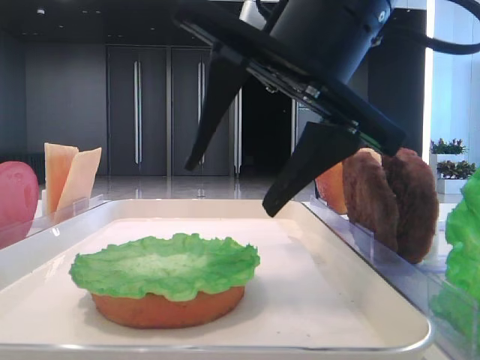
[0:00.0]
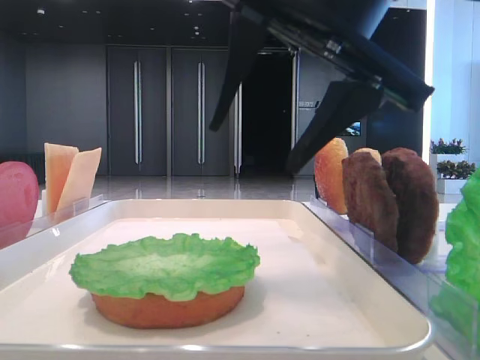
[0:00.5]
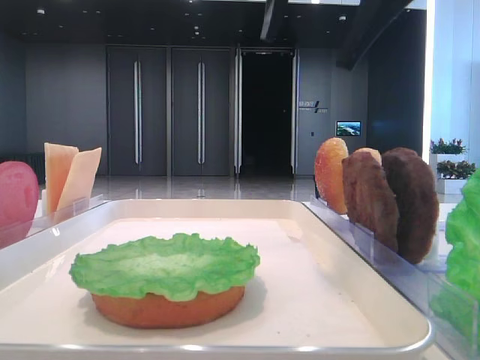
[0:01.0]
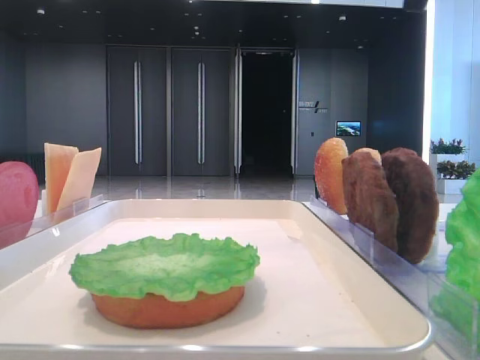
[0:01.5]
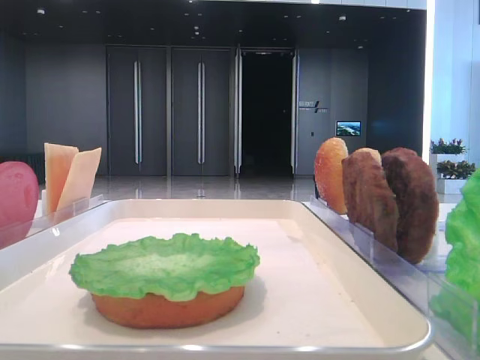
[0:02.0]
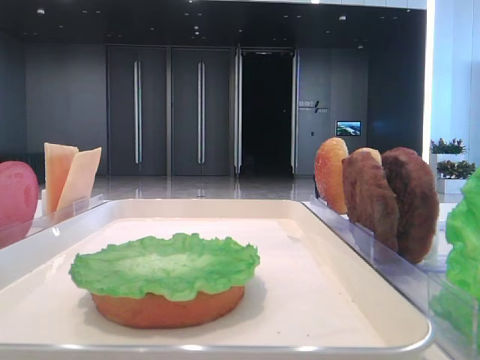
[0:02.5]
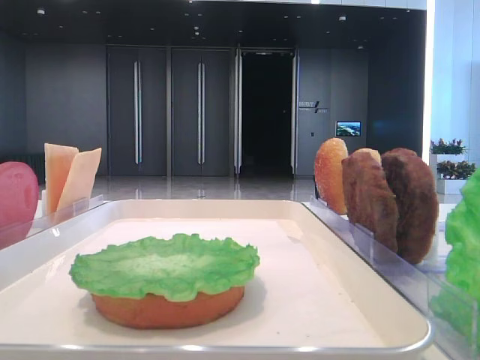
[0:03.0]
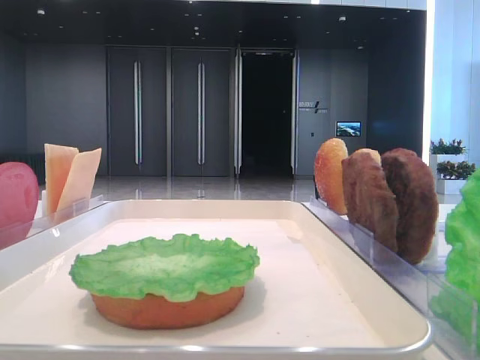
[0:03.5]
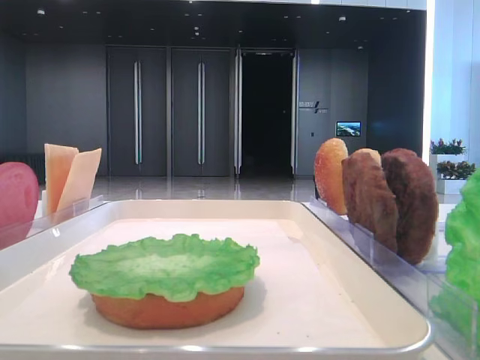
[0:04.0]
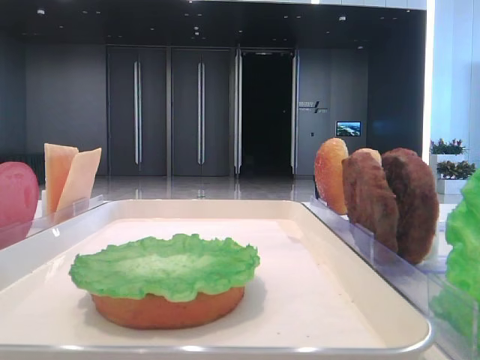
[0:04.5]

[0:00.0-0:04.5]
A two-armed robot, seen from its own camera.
0:00.0 to 0:02.0: The right gripper is displaced to the right and upward by about 25 cm.

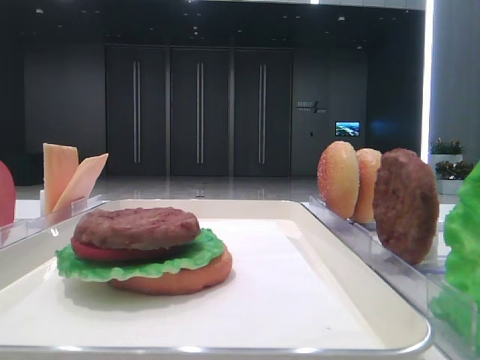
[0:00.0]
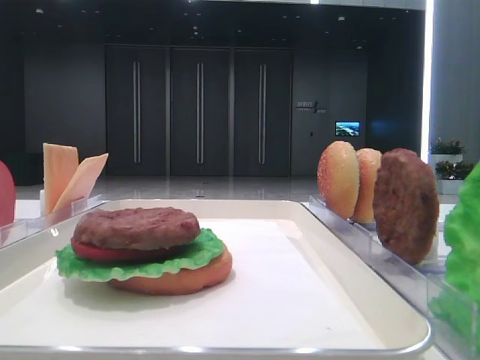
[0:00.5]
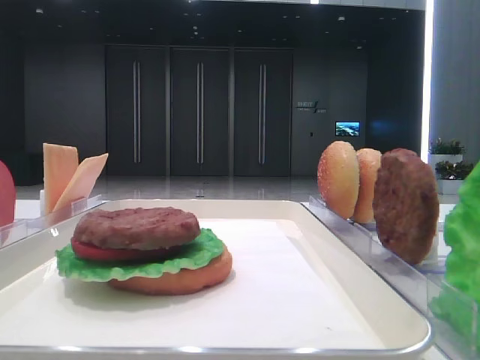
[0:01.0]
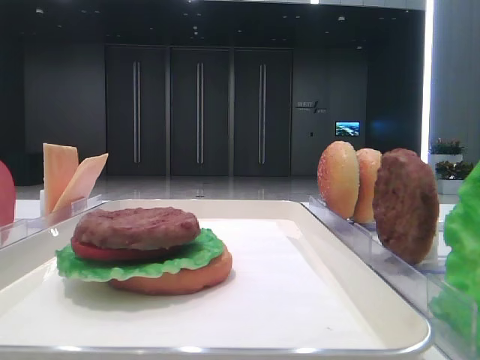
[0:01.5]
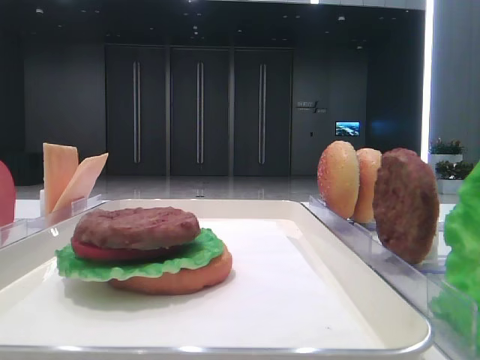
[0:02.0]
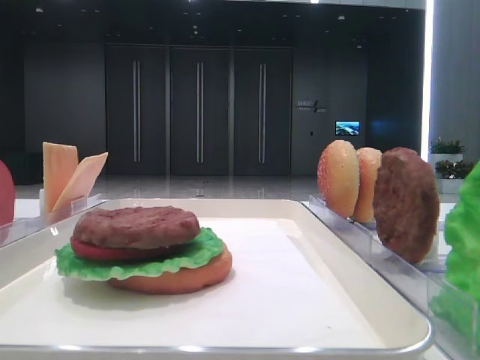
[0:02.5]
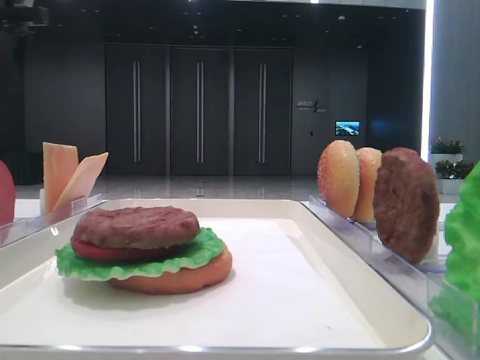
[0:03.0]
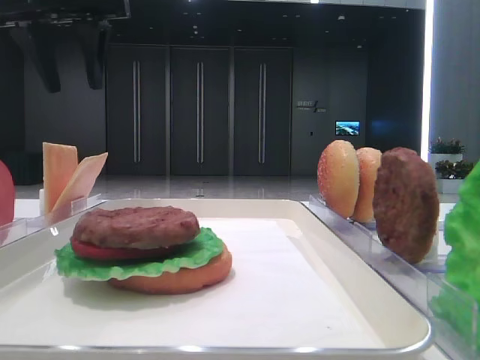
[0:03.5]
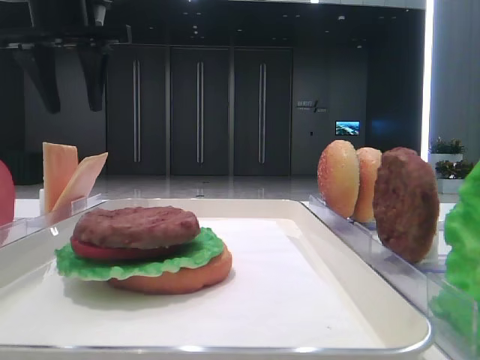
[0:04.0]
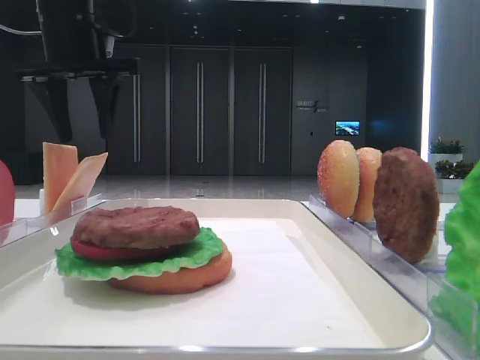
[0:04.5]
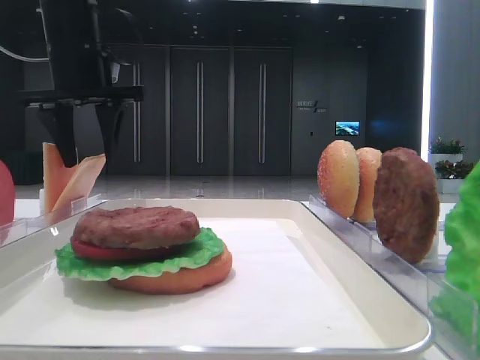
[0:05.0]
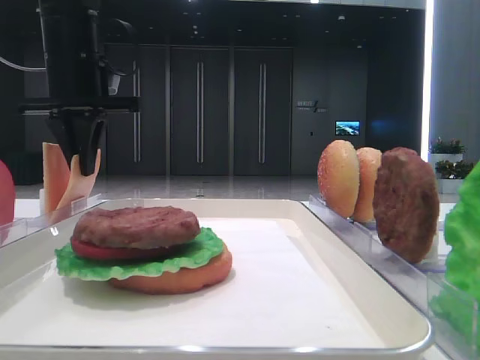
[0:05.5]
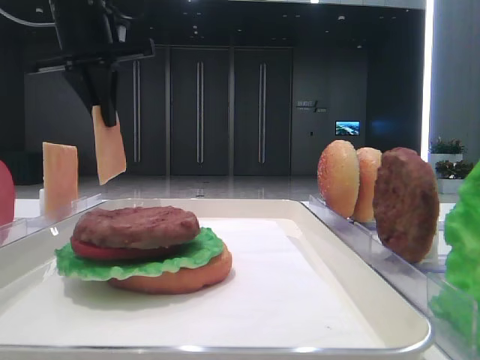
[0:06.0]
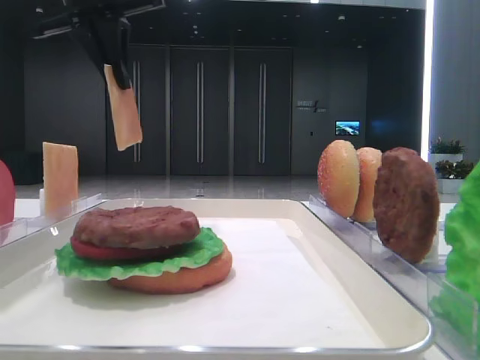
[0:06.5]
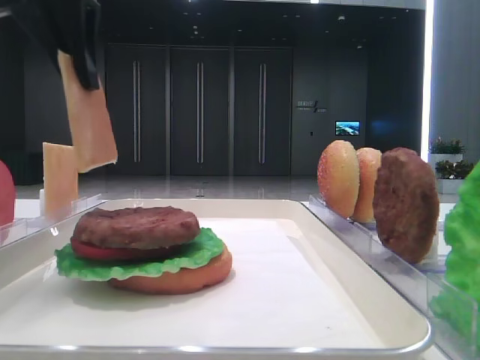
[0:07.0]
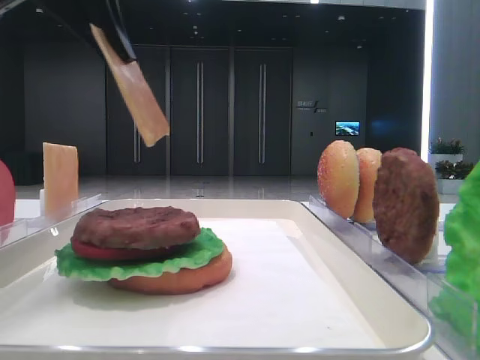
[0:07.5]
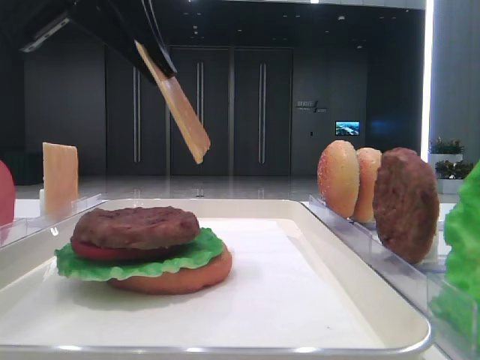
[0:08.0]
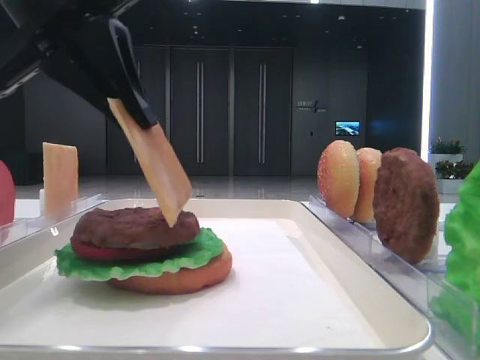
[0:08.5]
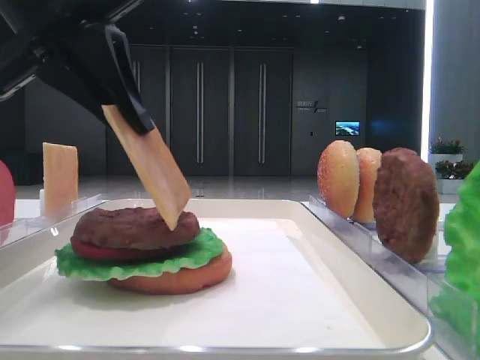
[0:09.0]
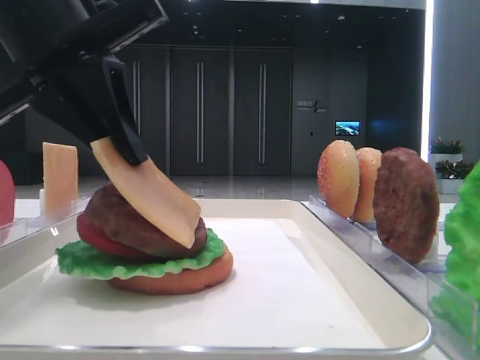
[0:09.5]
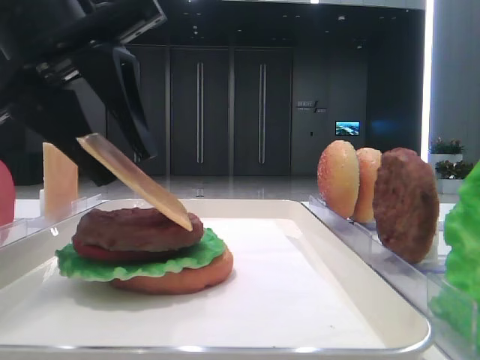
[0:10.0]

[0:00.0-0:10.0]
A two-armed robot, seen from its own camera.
Step, 0:00.0 to 0:05.5: Pick up the cheese slice with the left hand.
0:02.0 to 0:04.0: The left gripper travels forward by approximately 30 cm.
0:04.0 to 0:06.0: The left gripper closes.
0:06.0 to 0:08.0: The left gripper travels backward by some 15 cm.
0:08.0 to 0:10.0: The left gripper heads downward, covering approximately 5 cm, and opens up.

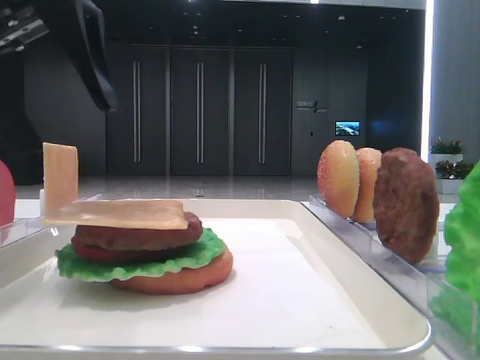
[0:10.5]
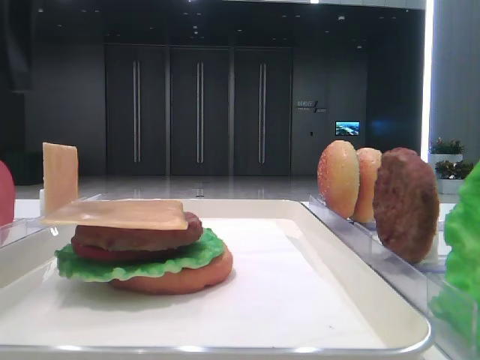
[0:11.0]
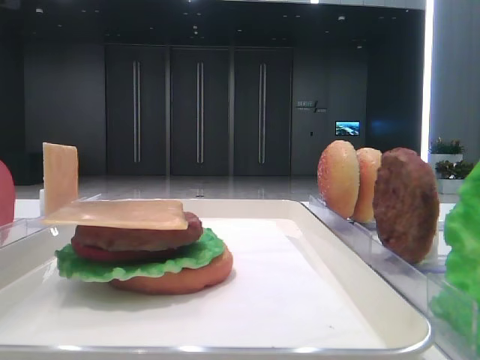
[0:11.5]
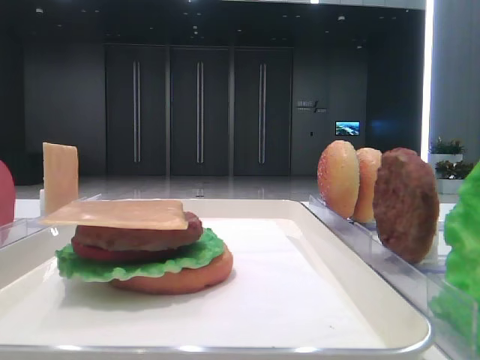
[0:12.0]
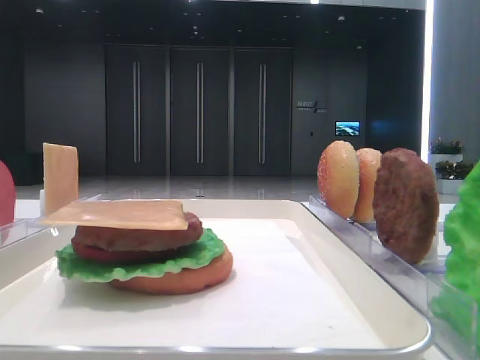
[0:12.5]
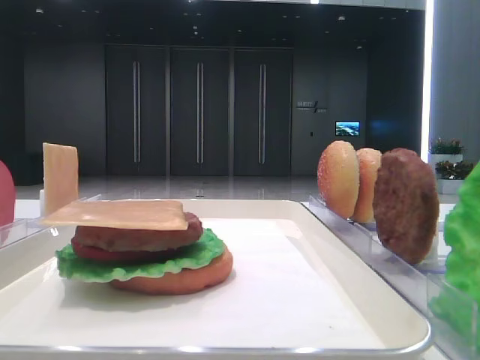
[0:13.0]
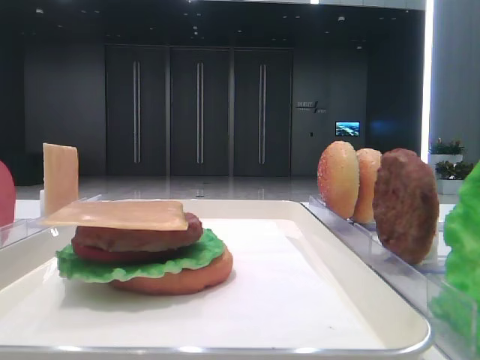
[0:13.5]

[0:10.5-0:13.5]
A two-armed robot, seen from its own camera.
0:10.5 to 0:12.0: The left gripper shifts about 15 cm to the left and upward.

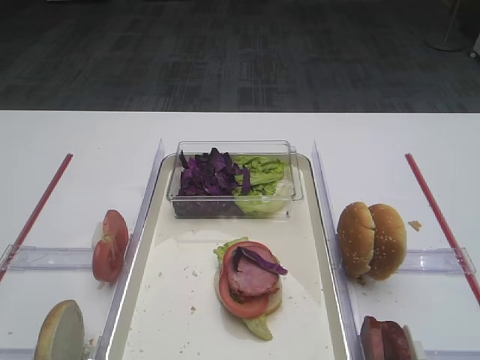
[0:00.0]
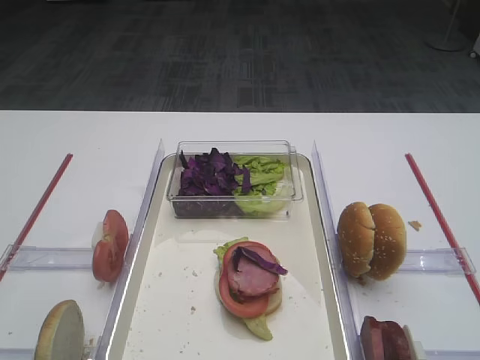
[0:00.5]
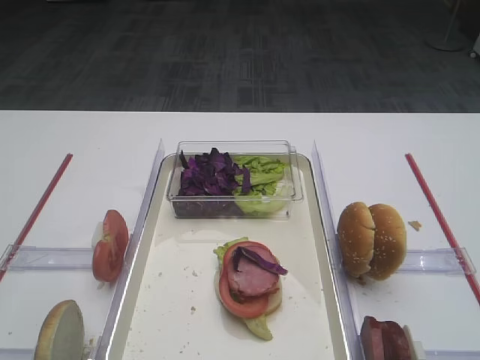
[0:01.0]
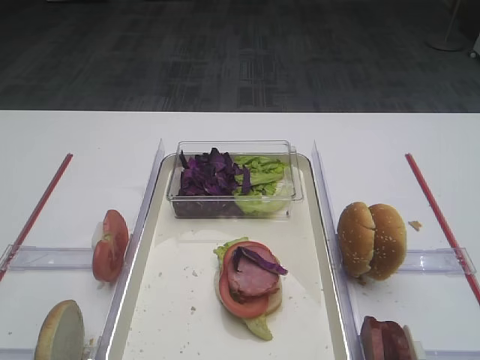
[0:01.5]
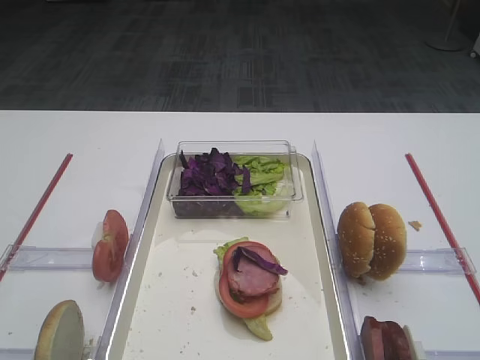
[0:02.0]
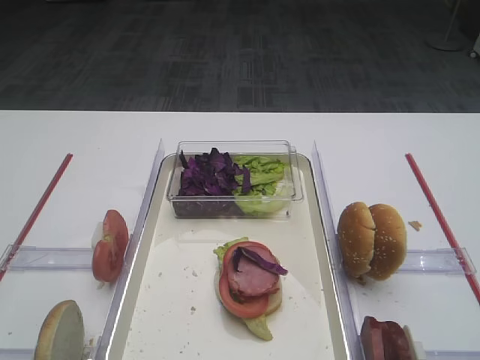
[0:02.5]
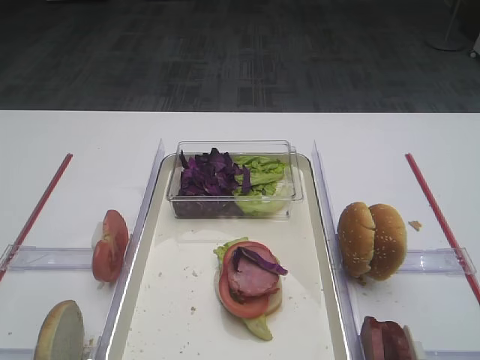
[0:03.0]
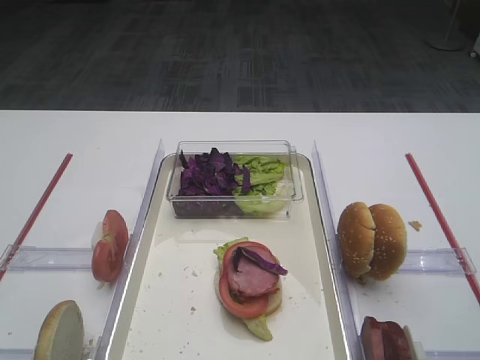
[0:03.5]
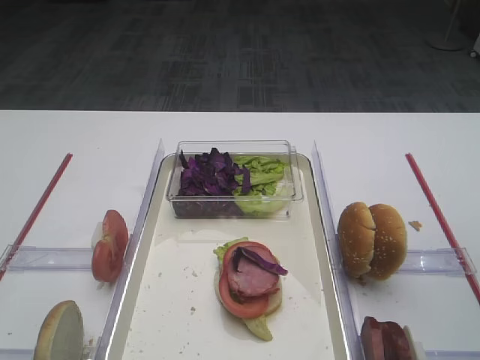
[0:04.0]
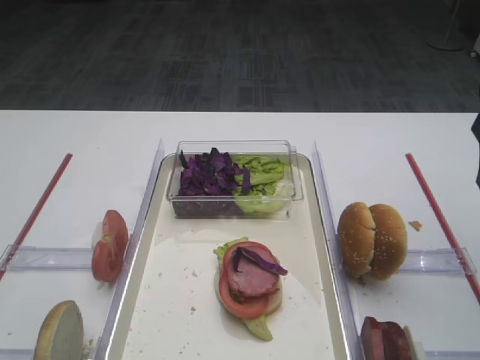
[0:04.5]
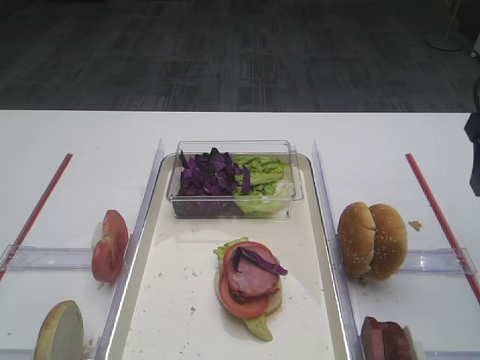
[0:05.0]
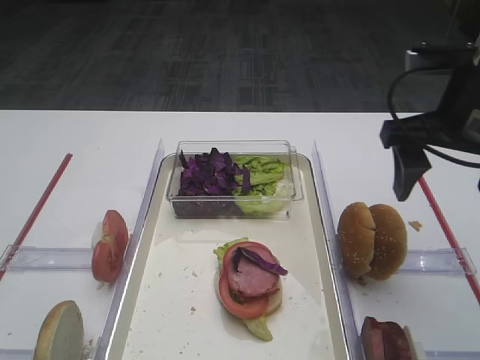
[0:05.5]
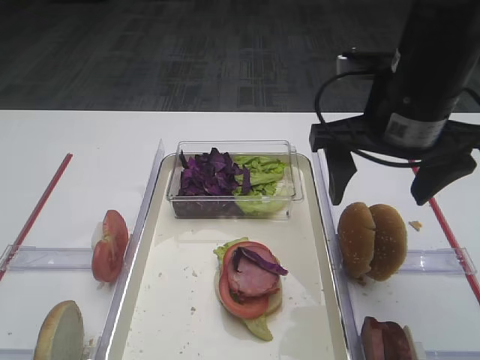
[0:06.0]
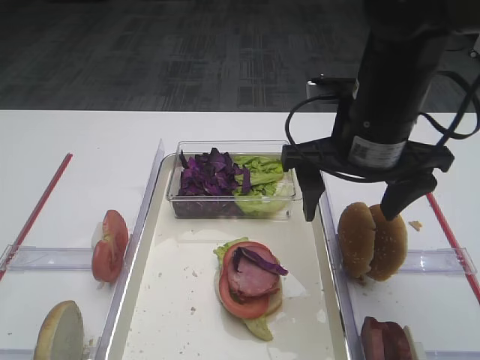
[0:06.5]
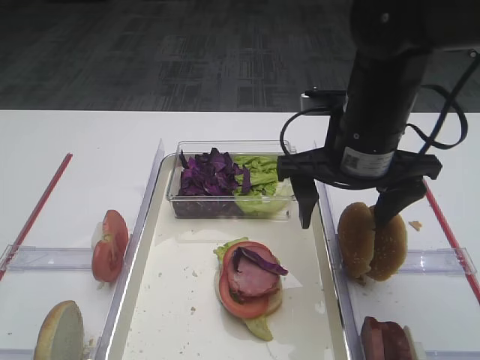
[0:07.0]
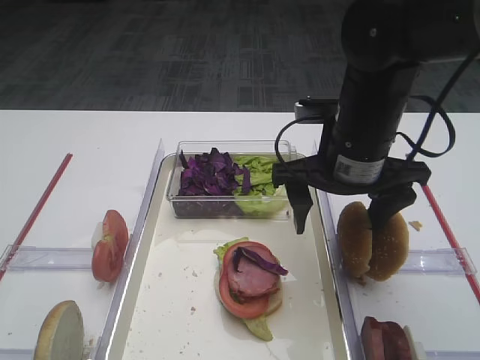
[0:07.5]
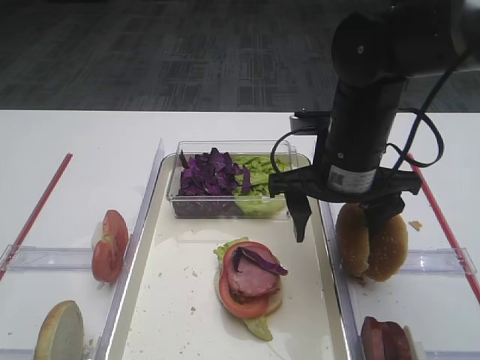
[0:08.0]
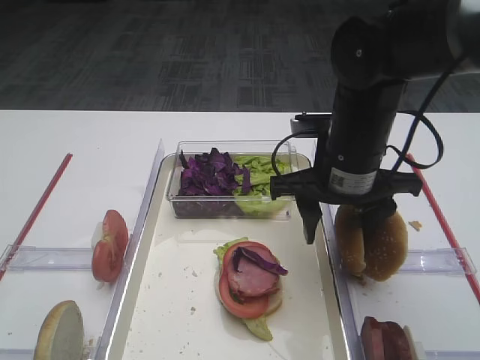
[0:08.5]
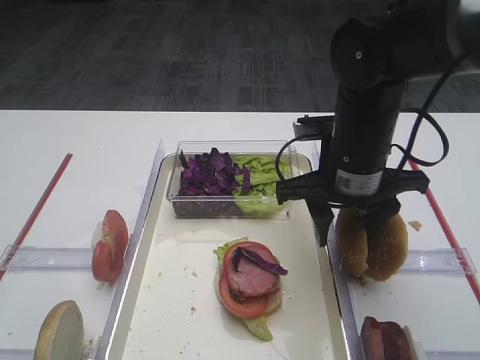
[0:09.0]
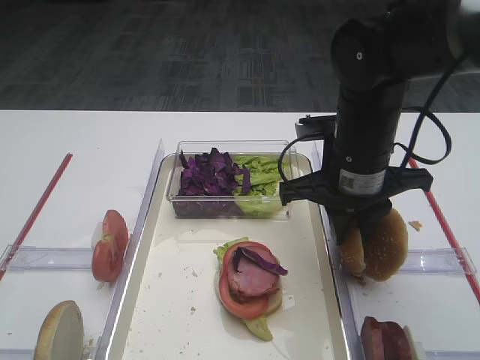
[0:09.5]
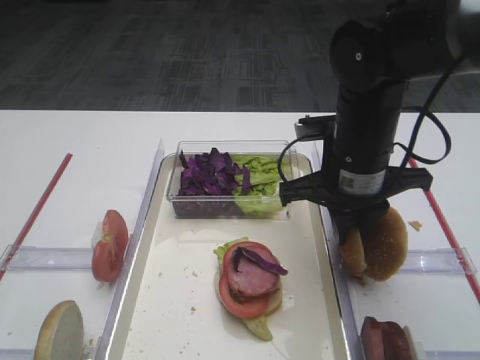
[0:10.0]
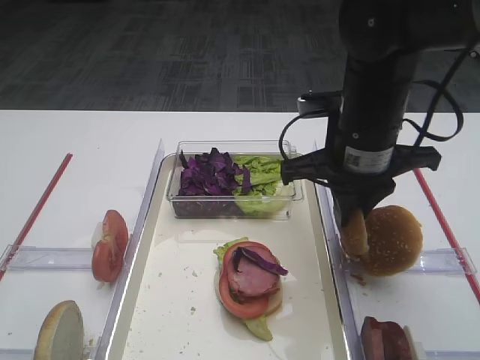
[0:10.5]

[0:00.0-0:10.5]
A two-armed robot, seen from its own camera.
0:04.0 to 0:06.5: The right gripper travels to the left and forward by roughly 15 cm.
0:06.5 to 0:08.5: The right gripper is displaced downward by roughly 5 cm.
0:08.5 to 0:10.5: The right gripper closes its fingers.
